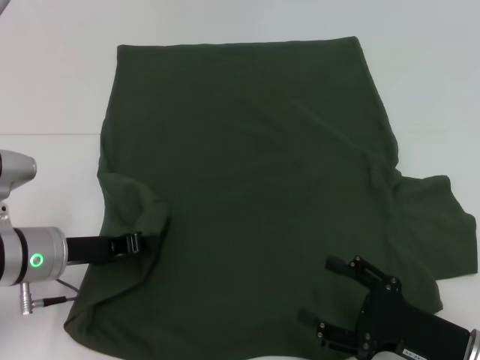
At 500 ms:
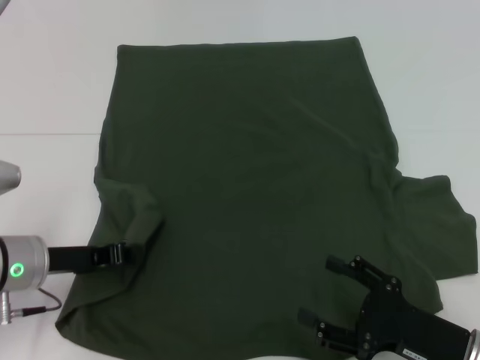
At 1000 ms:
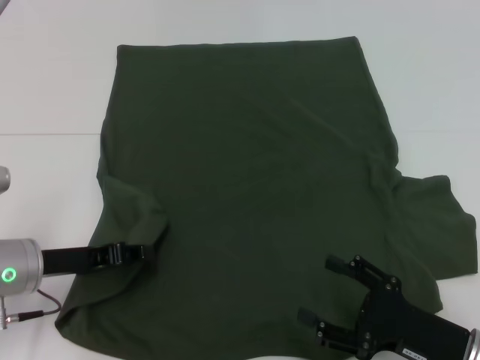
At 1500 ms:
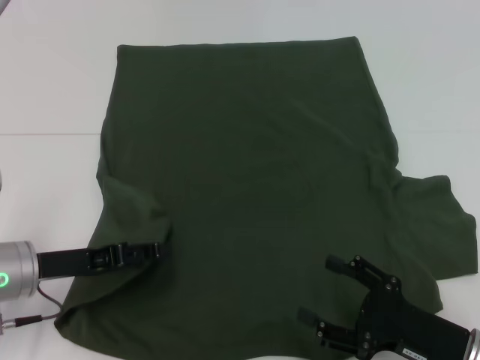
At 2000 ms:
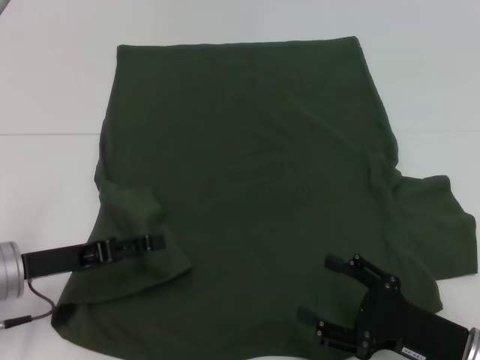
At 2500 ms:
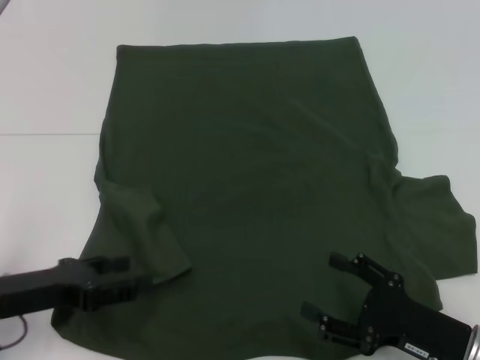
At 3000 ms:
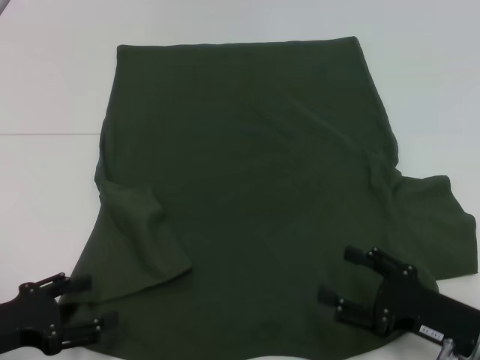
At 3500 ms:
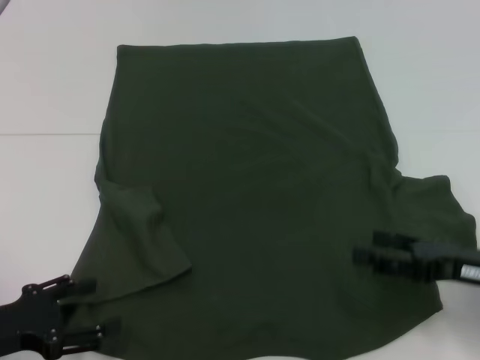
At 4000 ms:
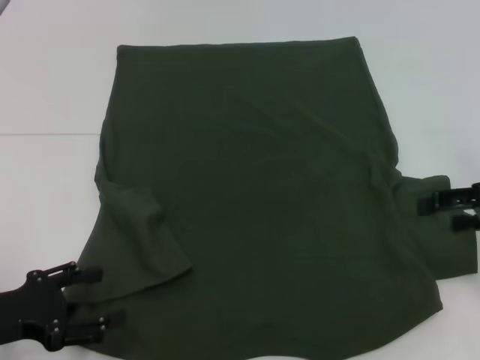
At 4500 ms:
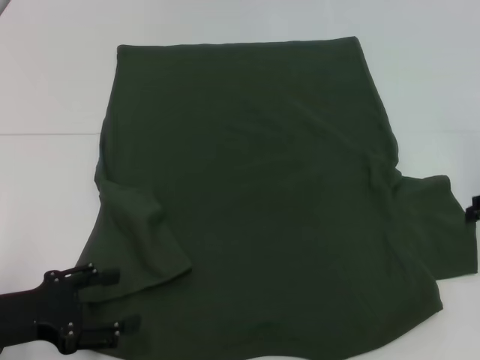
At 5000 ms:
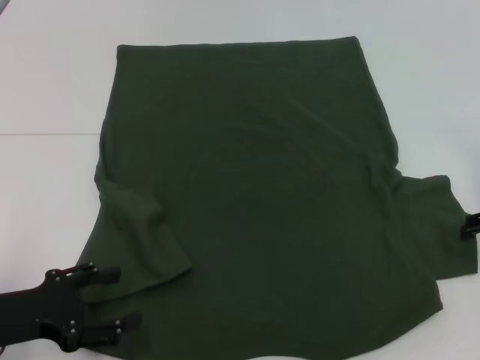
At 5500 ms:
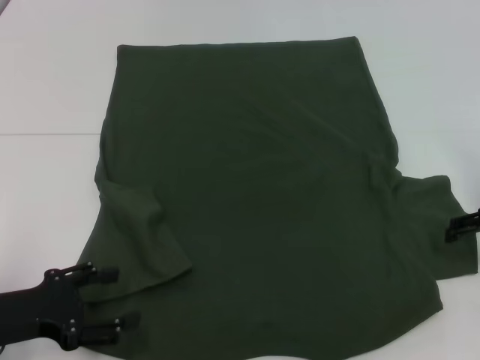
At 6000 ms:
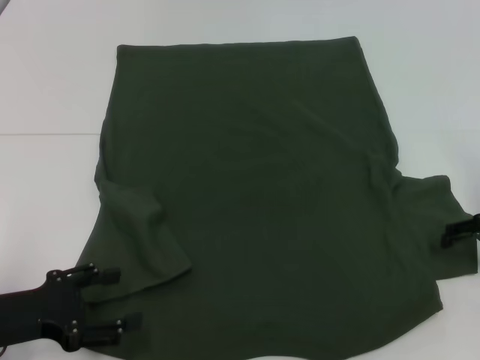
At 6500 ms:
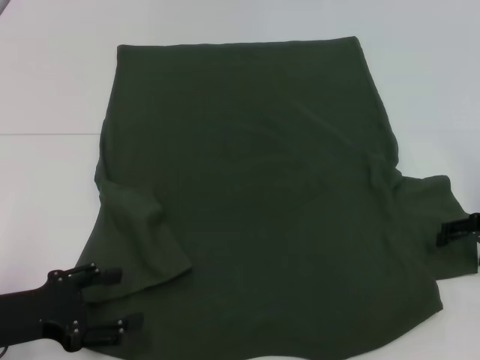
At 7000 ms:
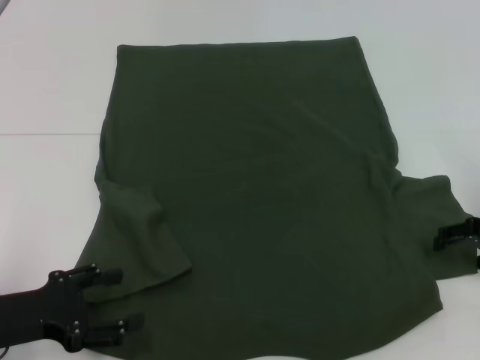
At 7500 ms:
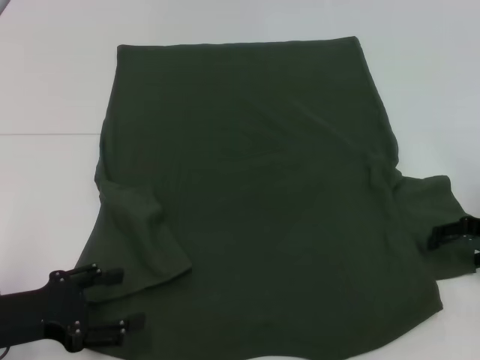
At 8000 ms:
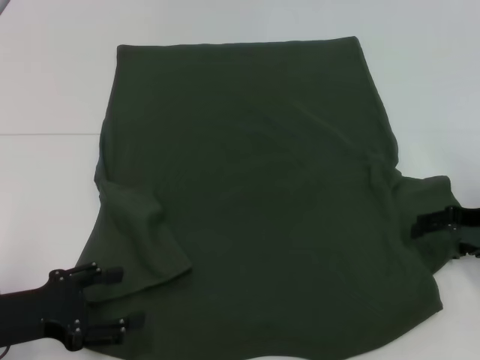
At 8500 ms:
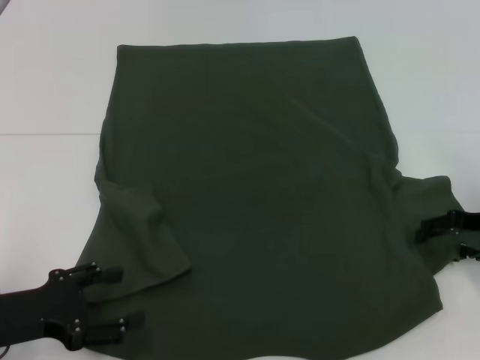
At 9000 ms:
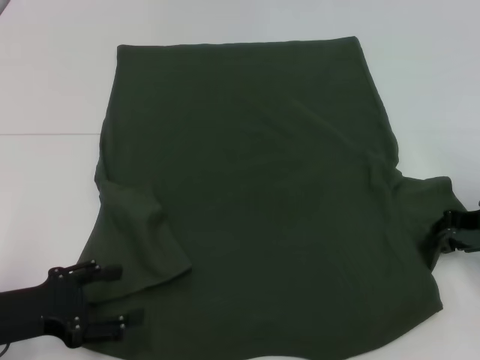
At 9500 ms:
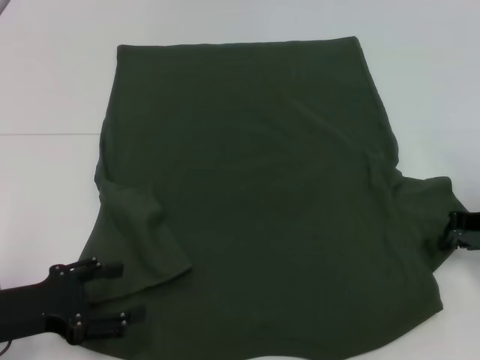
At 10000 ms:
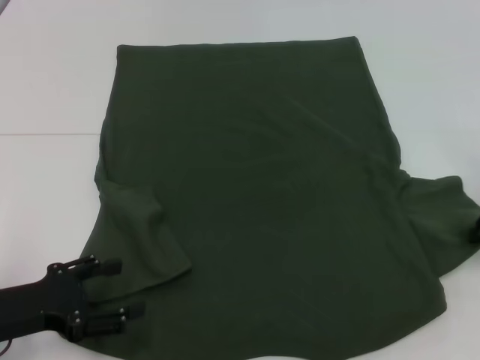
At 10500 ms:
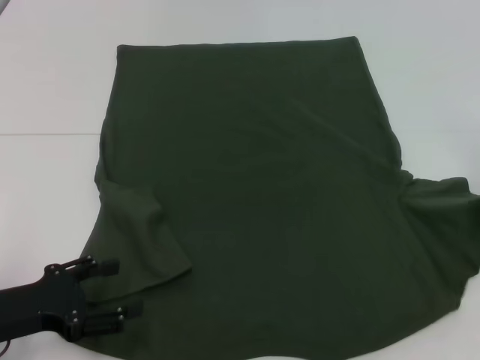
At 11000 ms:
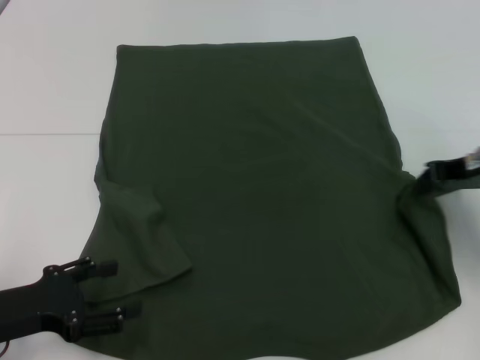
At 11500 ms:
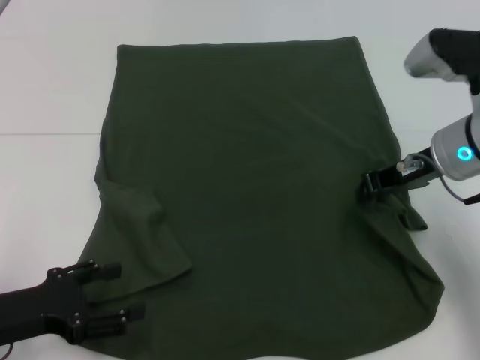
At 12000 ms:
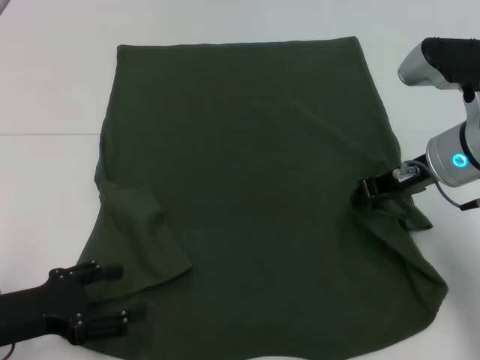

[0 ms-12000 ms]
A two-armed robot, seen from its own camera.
Step, 0 ms to 3500 ms: Fold the bottom left sleeve with your left hand.
0 ms to 2000 ms: The left gripper opens its fingers.
2000 ms to 4000 ms: The left gripper travels backward by roughly 5 cm; the right gripper is displaced upward, forward and to the right by some 20 cm.
4000 ms to 6000 ms: The right gripper heads downward, covering some 5 cm.
6000 ms to 8000 ms: There are only small adjustments of the grippers.
8000 ms to 10000 ms: The right gripper closes up.
10000 ms to 12000 ms: The right gripper heads to the left, covering roughly 15 cm.

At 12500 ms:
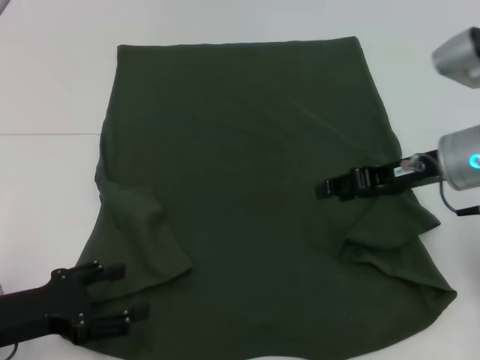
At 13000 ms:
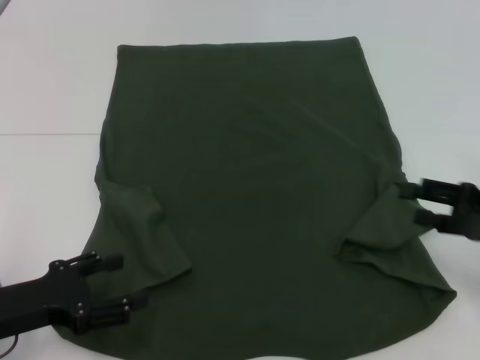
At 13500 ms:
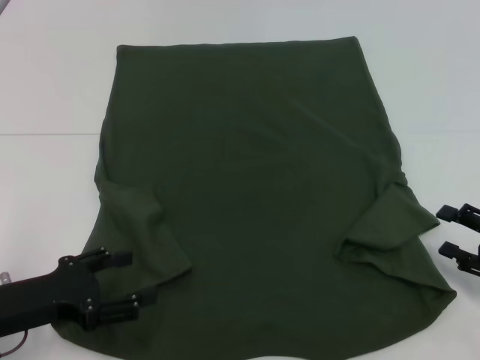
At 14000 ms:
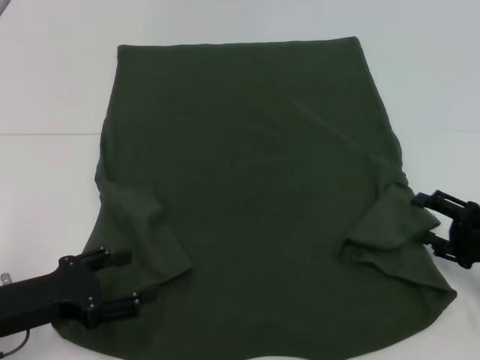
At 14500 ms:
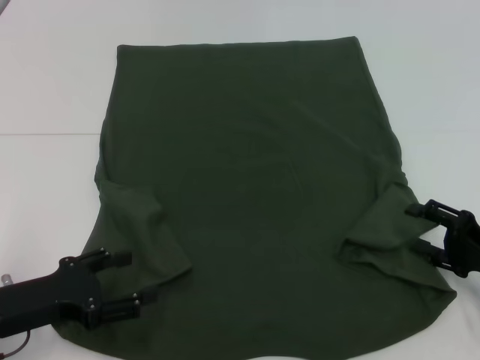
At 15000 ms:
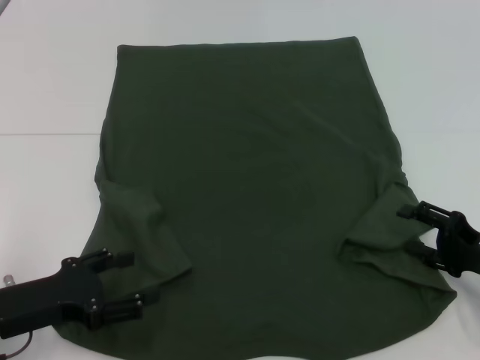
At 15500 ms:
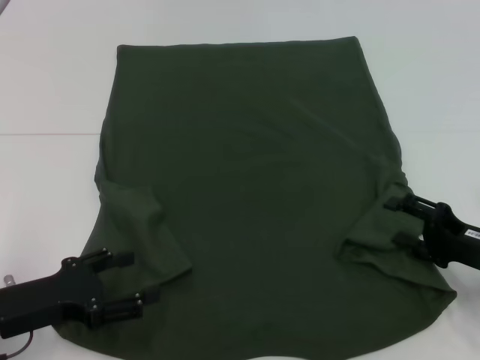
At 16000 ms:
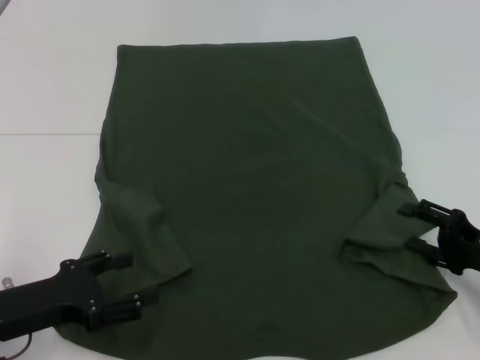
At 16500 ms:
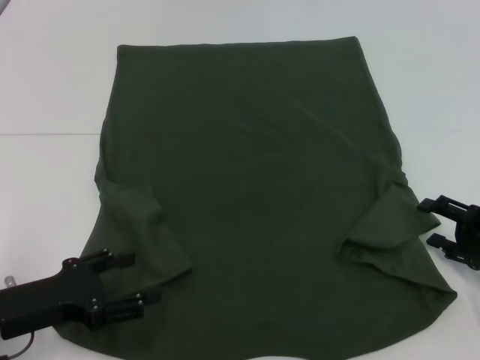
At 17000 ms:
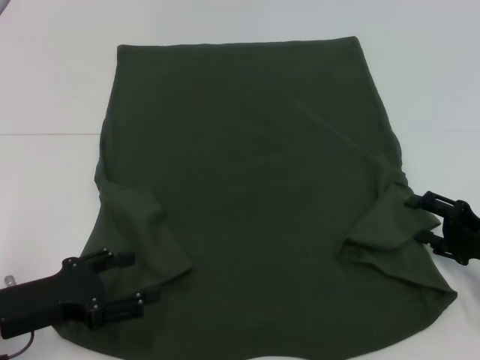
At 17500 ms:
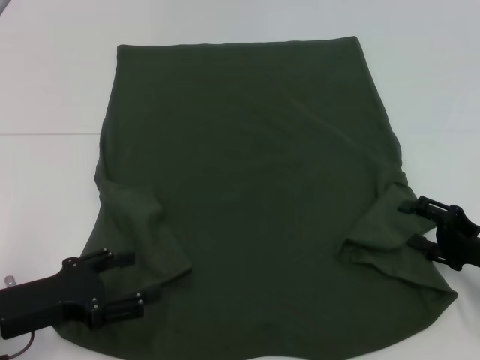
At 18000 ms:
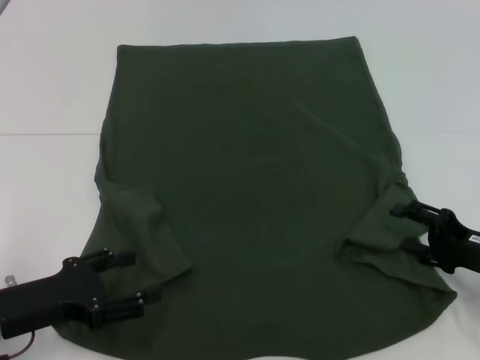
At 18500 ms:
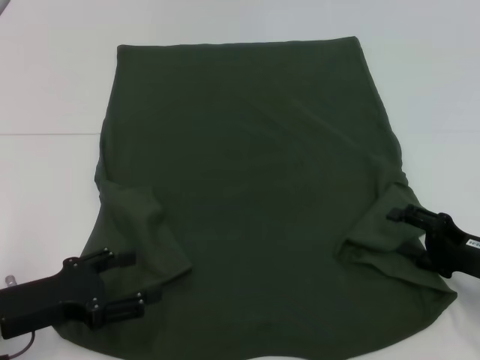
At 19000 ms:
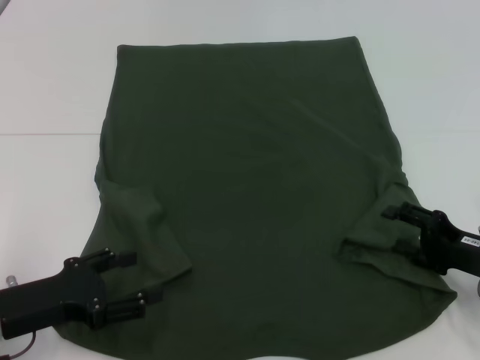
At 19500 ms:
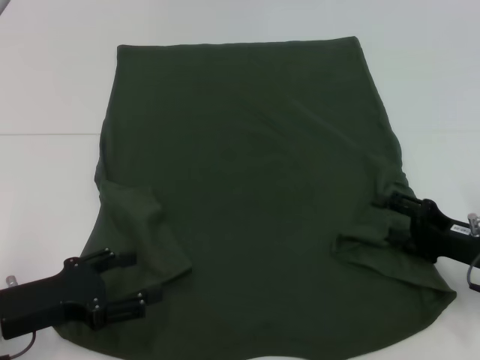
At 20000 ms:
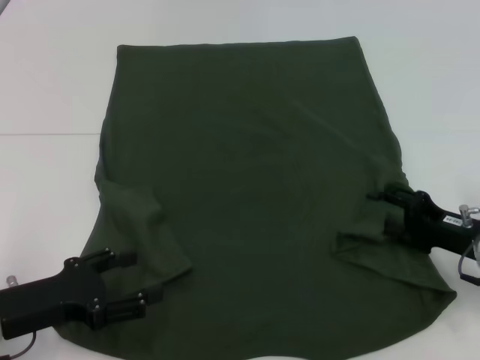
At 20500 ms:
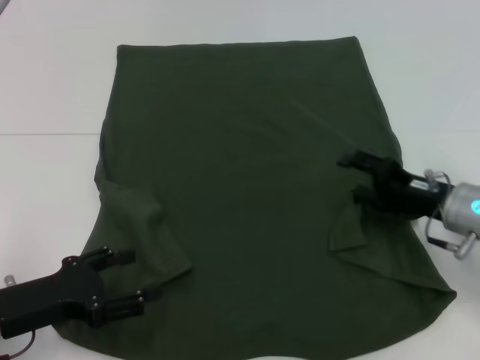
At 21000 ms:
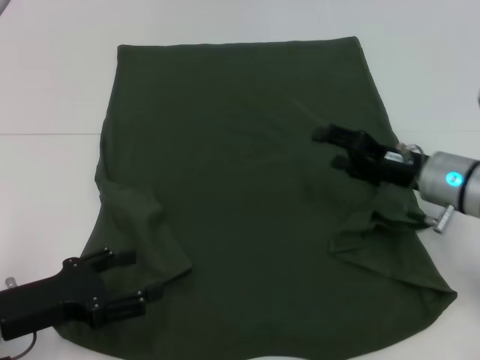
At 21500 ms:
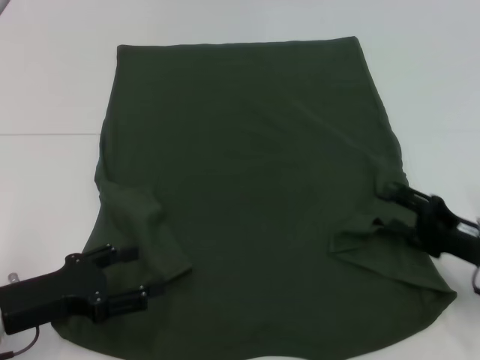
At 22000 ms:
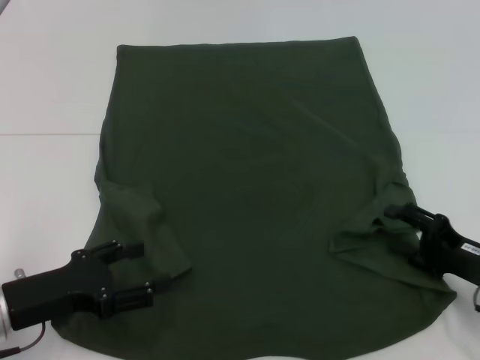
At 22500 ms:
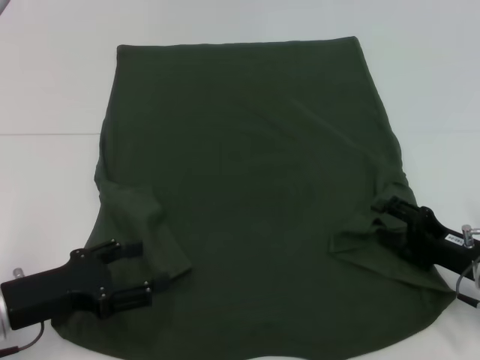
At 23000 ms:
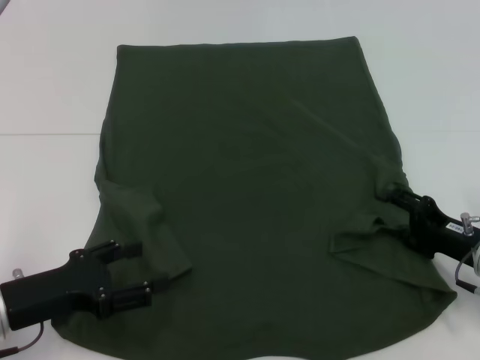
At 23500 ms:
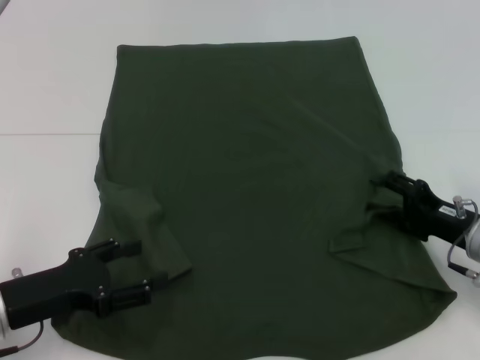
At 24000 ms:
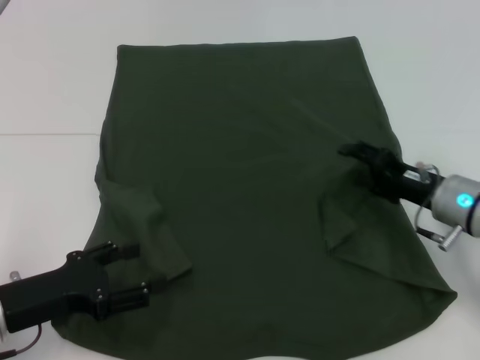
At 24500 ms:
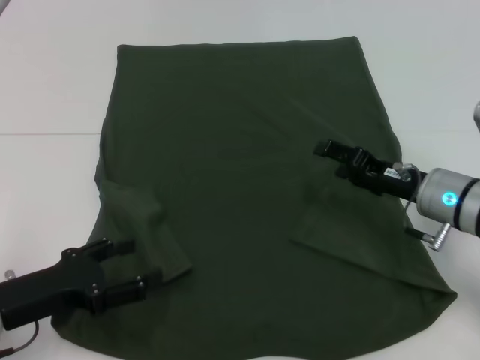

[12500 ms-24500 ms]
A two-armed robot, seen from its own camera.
12500 ms to 14500 ms: The right gripper is displaced downward, to the right and backward by some 20 cm, and opens.
14500 ms to 18500 ms: The grippers stay close to where they were, moving slightly.
18500 ms to 20500 ms: The right gripper is displaced forward and to the left by roughly 10 cm.
20500 ms to 22500 ms: The right gripper shifts some 5 cm backward.
22500 ms to 24500 ms: The right gripper moves forward and to the left, approximately 10 cm.

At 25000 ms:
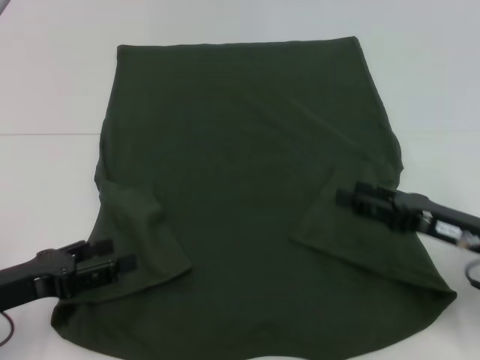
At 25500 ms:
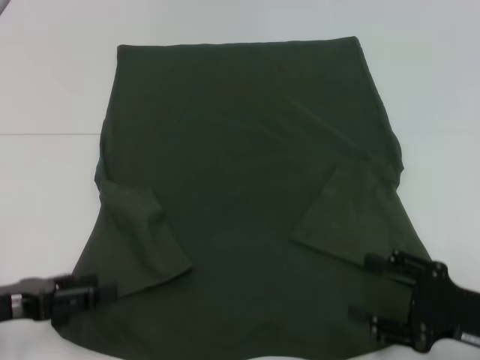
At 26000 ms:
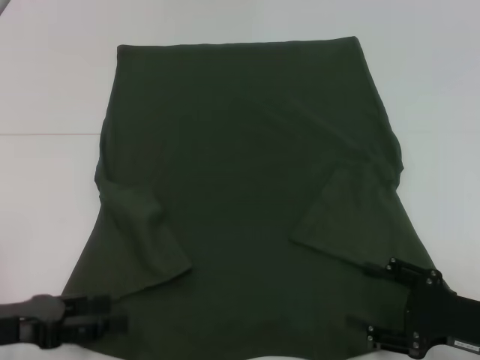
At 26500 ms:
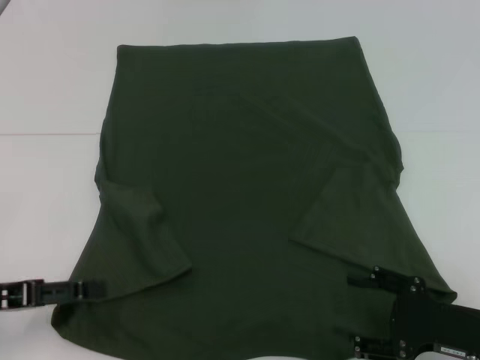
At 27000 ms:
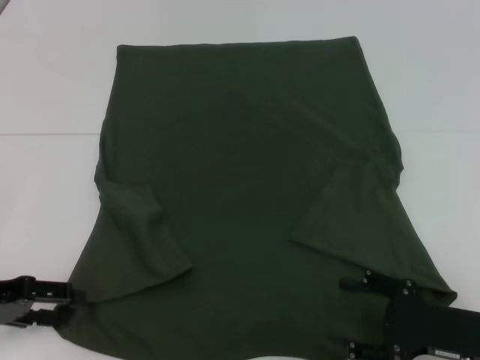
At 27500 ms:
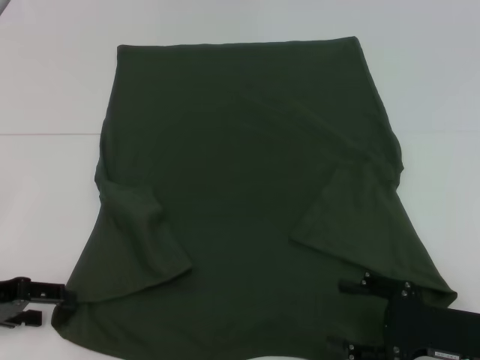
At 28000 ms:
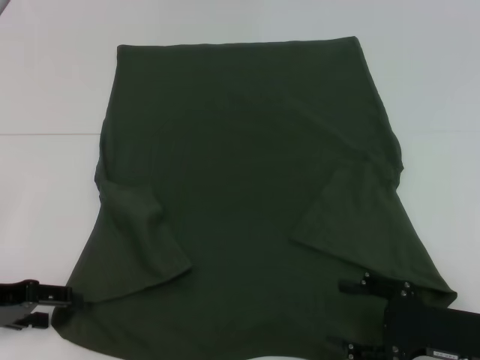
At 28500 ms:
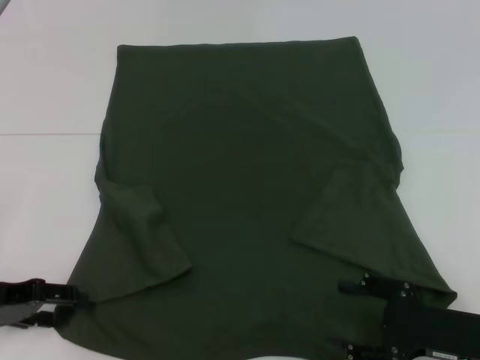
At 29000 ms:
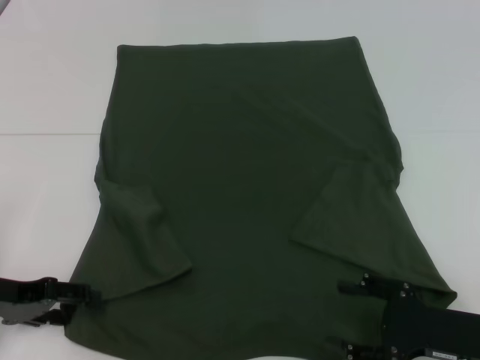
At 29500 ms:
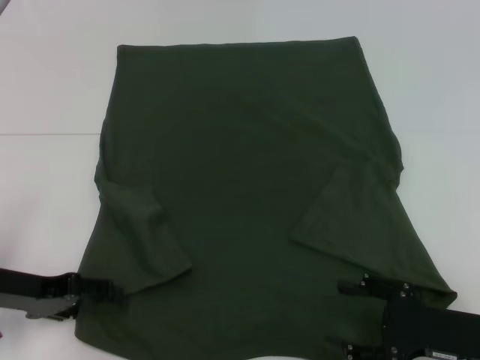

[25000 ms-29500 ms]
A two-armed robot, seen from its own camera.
25000 ms to 27000 ms: The left gripper ends up about 5 cm from where it was. Meanwhile the right gripper is displaced backward by roughly 5 cm.
27000 ms to 29500 ms: The grippers stay close to where they were, moving slightly.
